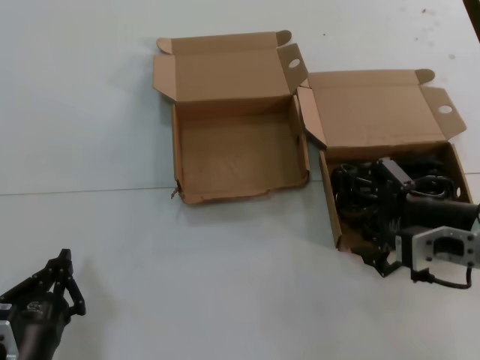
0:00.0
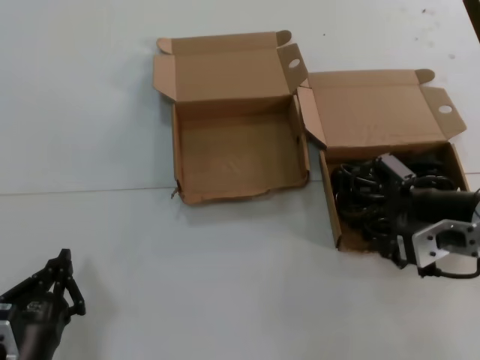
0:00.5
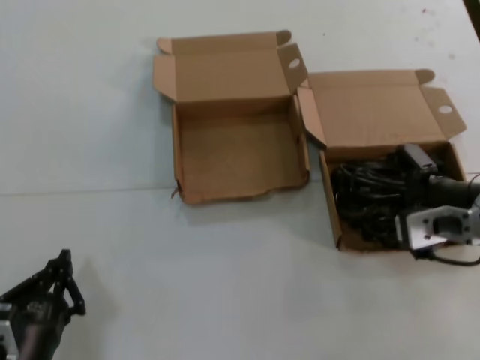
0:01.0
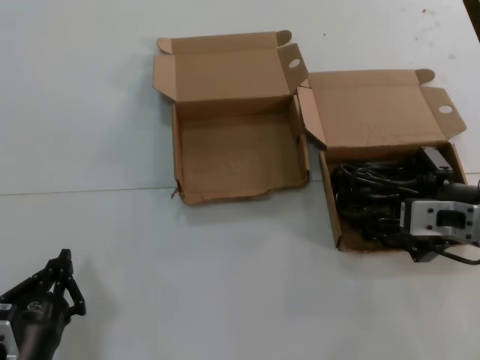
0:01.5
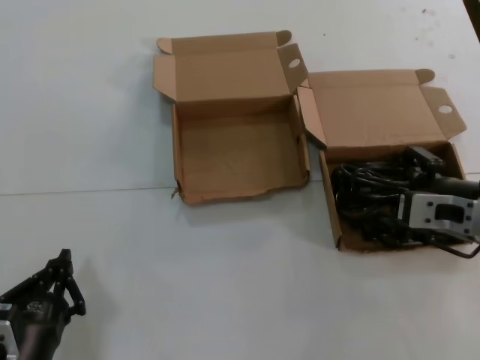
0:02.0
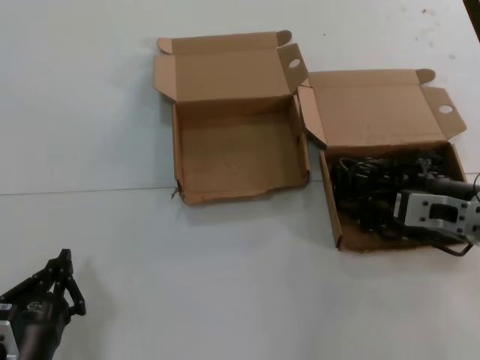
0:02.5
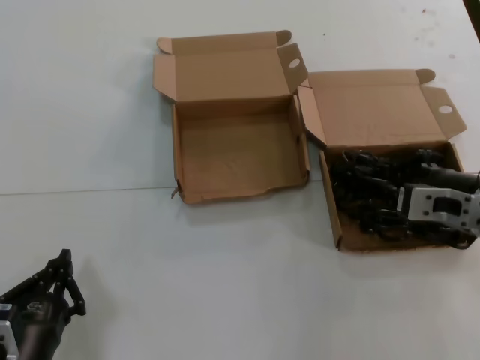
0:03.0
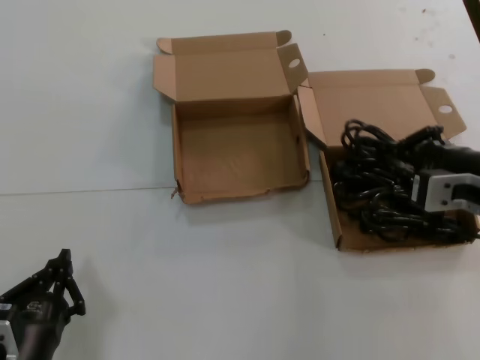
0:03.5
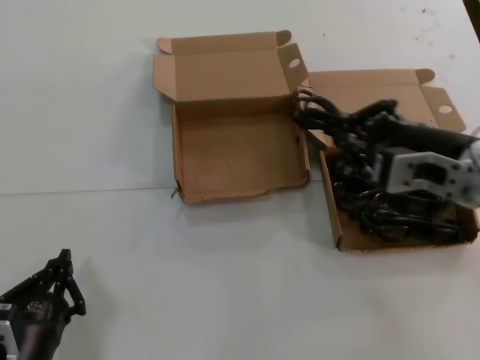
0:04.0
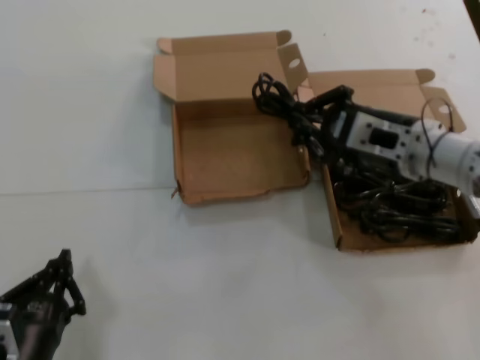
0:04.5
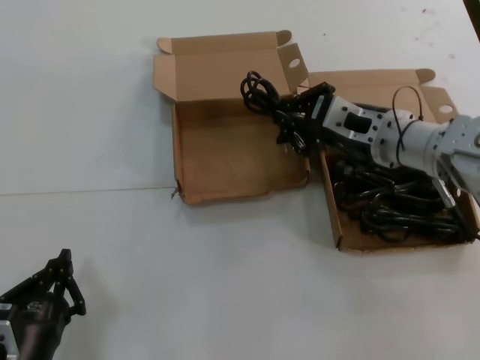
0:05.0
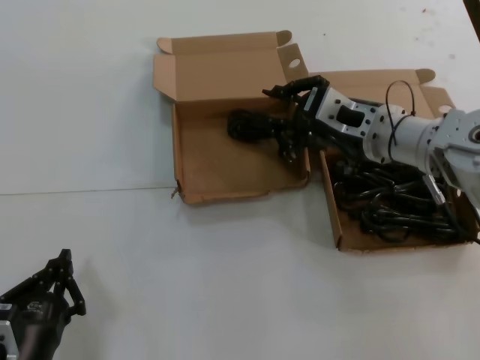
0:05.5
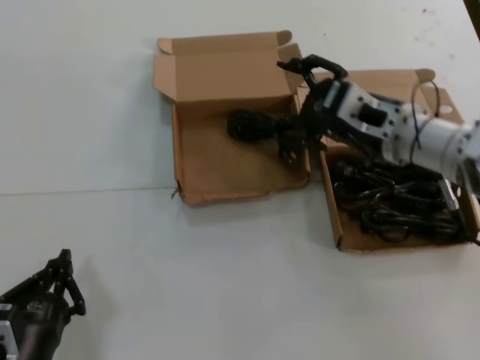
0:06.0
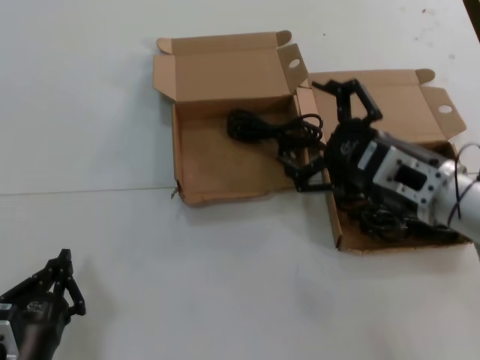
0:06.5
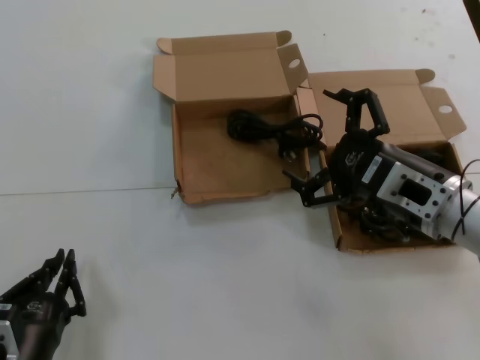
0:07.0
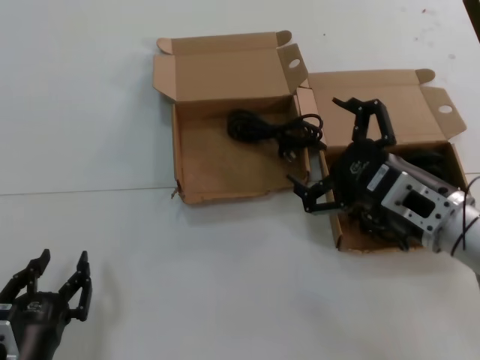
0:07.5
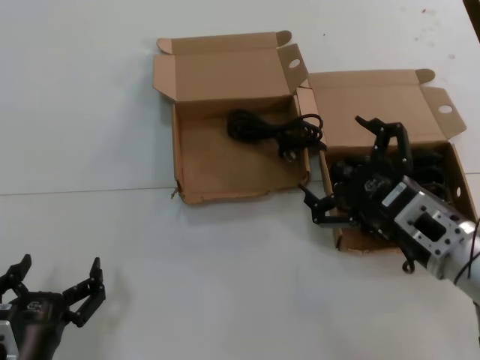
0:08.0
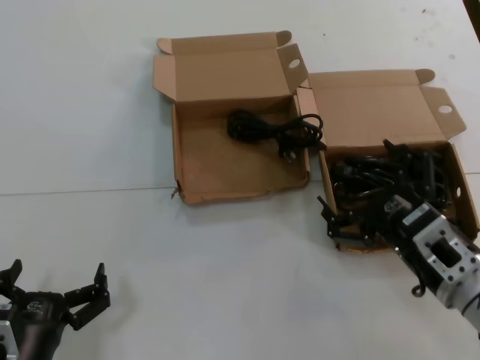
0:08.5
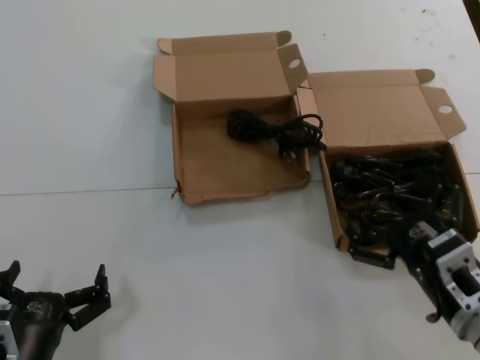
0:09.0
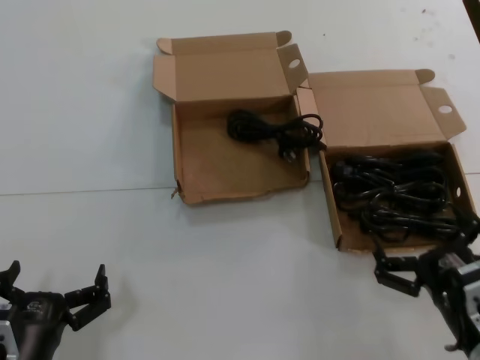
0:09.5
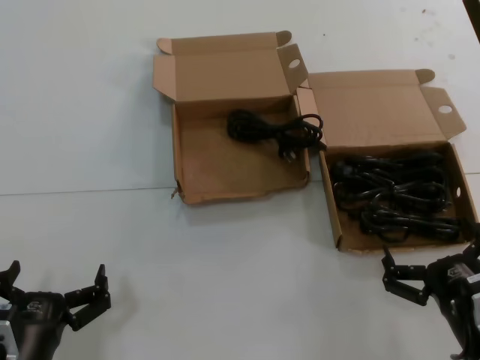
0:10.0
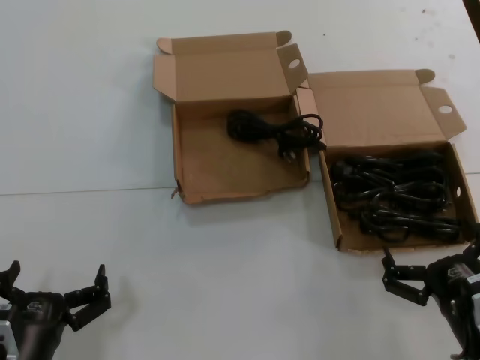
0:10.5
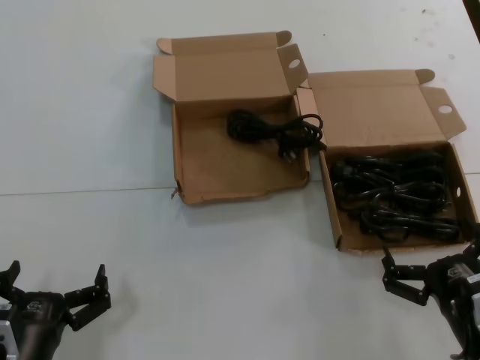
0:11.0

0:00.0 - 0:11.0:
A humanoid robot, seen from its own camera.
Task of the whole recording: take the parts from the box containing them and put them into an empty box.
Step, 0:00.0 - 0:02.0: Grasp the data cable.
Step, 0:03.0 - 0:05.0: Place the data cable in the another box.
0:02.0 - 0:03.5: The hands make only small movements.
0:03.5 - 0:05.5: The right hand shifts some 15 cm forward and to the left.
0:05.5 - 0:07.5: The right hand travels backward and downward by some 15 cm.
0:07.5 - 0:09.0: The right hand is displaced downward and backward by about 10 cm.
0:09.0 - 0:11.0: The right hand ends up about 5 cm from where it was.
